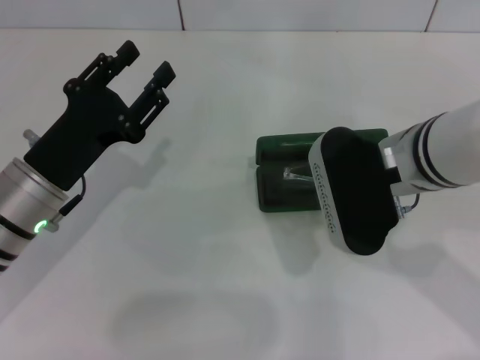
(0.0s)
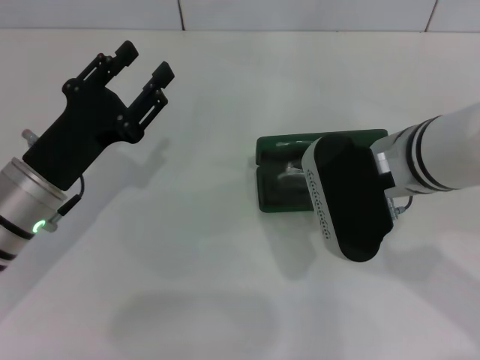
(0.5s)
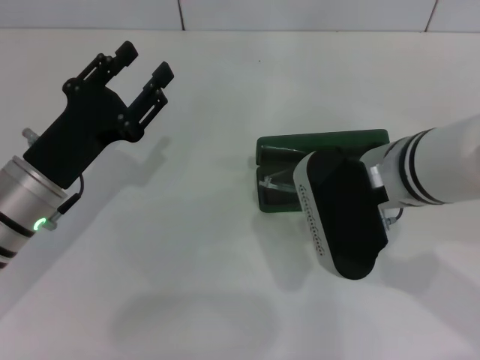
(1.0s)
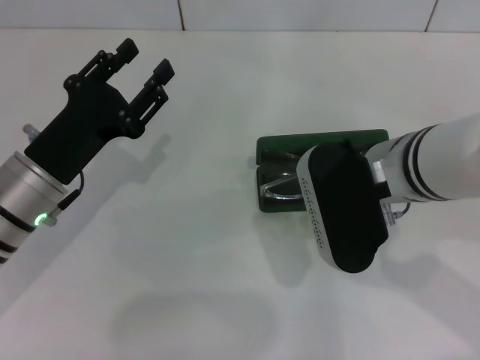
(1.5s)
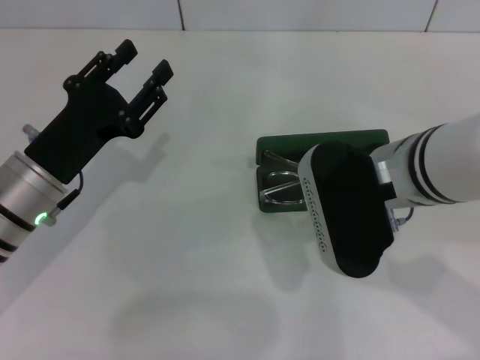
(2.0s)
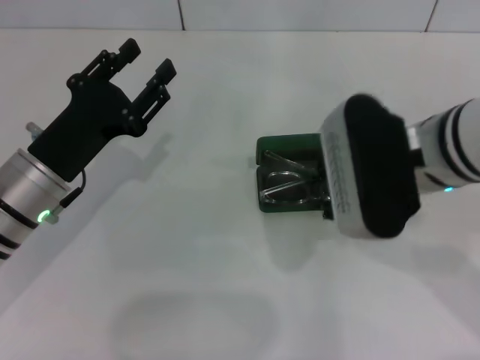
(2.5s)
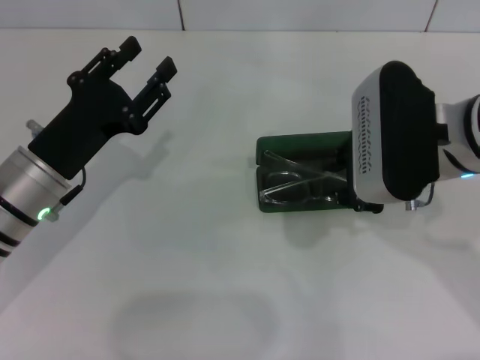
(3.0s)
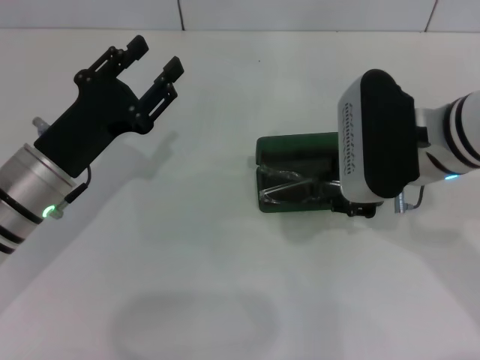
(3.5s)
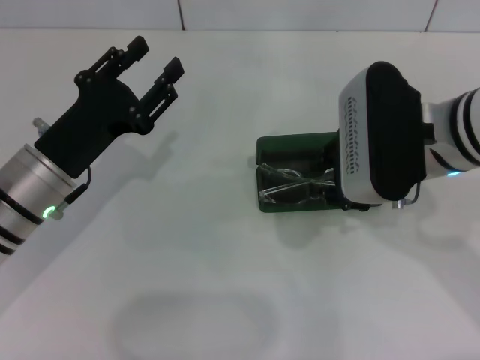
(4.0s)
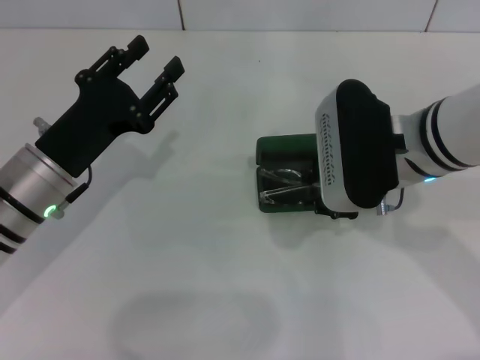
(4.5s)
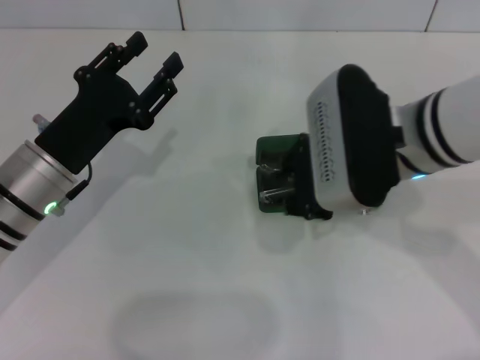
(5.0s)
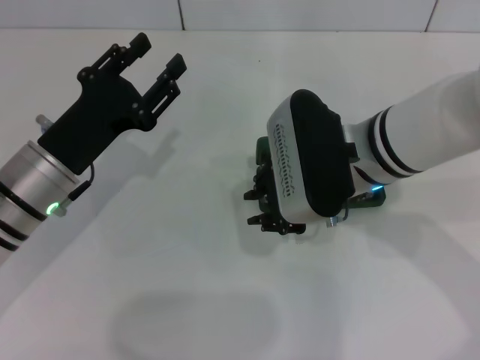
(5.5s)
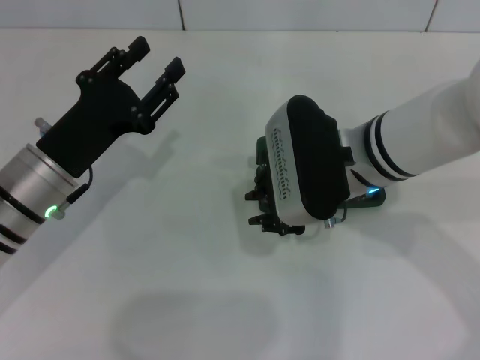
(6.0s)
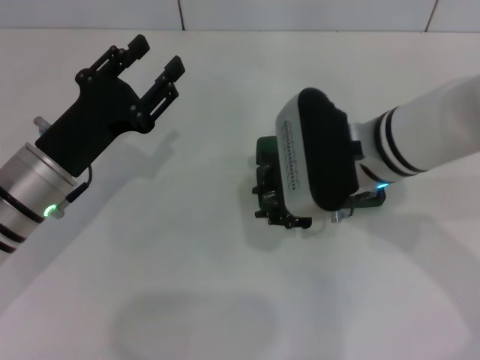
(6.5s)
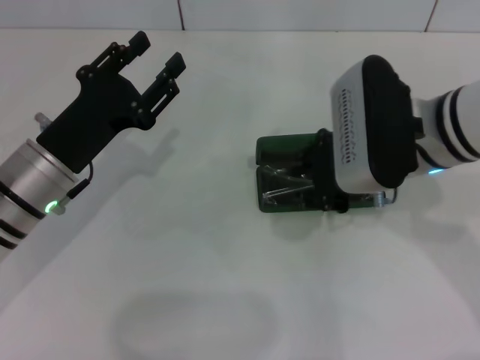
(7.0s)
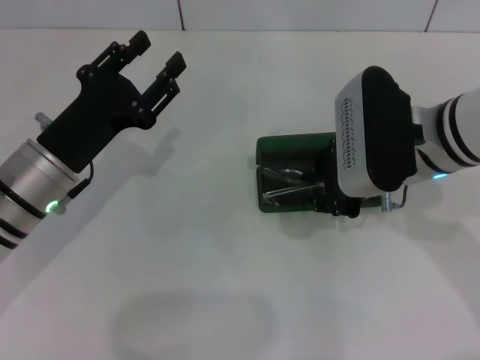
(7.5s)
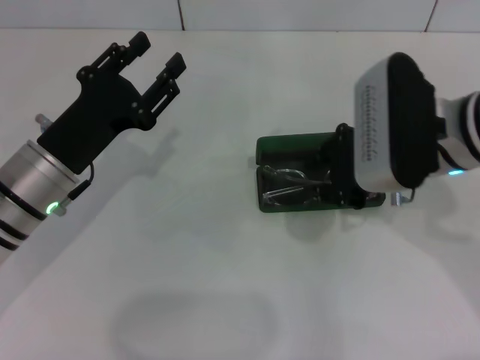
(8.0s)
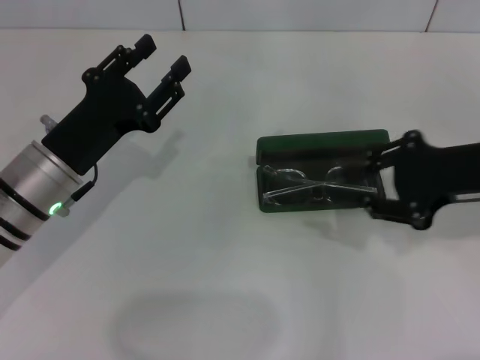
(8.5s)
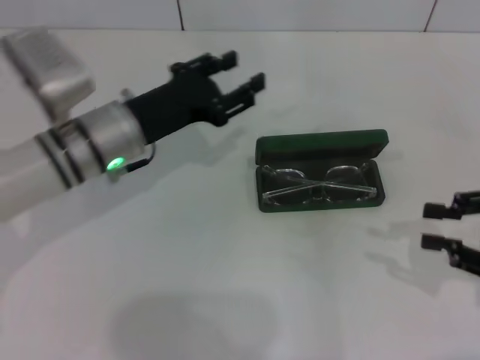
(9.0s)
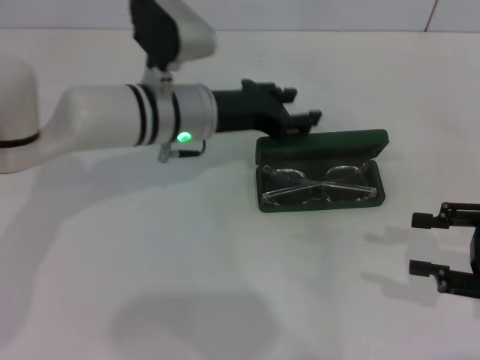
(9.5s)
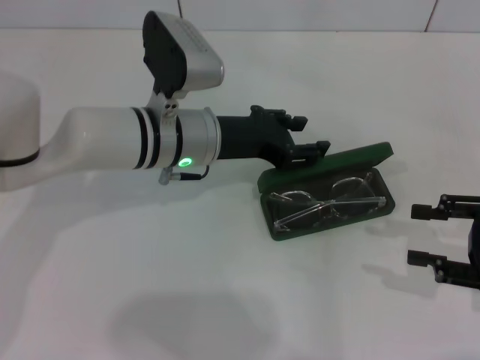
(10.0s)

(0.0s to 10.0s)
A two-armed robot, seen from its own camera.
Step, 0.0s - 7.5s: Put the glasses into the case with your right hand.
0.0s - 2.0s: The grippers stay close to where they were, moving slightly.
4.0s - 6.0s: The right gripper shifts roughly 5 cm to the left.
6.0s - 8.0s: The right gripper travels to the right by about 5 cm.
8.0s - 10.0s: The right gripper moves to the right, backward and downward, some 20 cm. Meanwhile the left gripper goes some 15 cm to the right and forward.

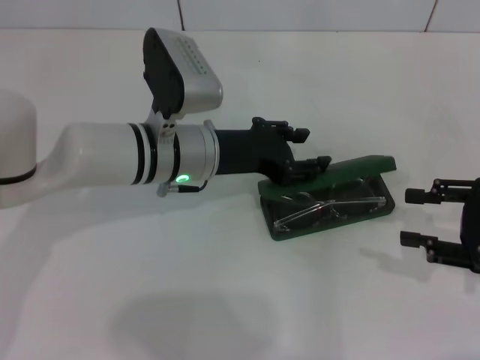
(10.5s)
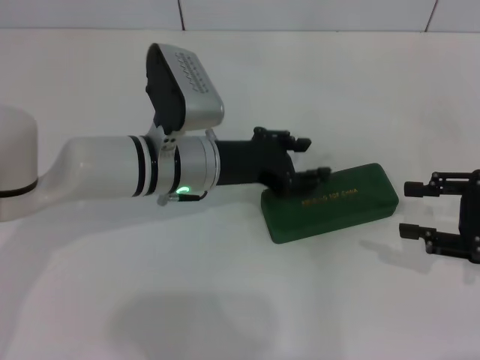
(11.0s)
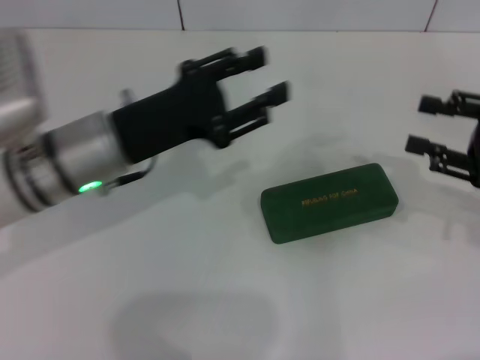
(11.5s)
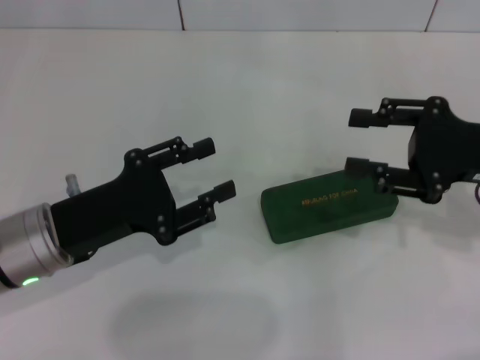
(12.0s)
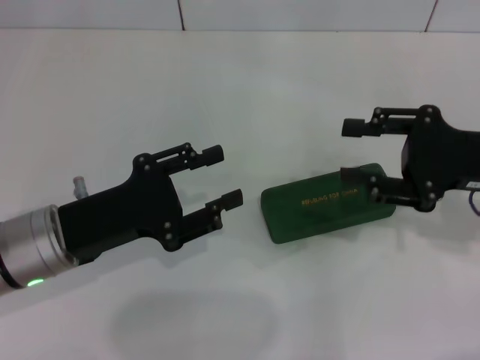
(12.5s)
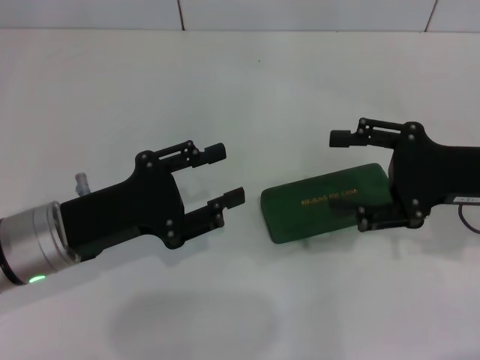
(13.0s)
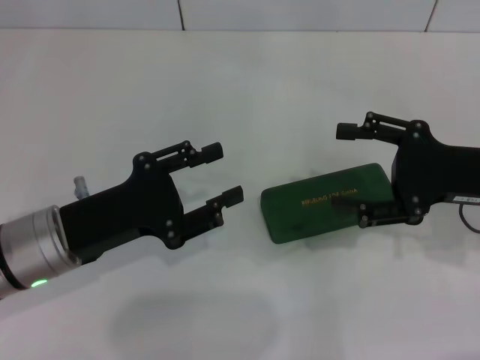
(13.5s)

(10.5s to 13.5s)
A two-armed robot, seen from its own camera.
10.5s - 12.0s: The left gripper shifts about 15 cm to the left and backward, while the right gripper moves to the left, about 5 cm.
12.0s - 13.5s: The right gripper opens up.

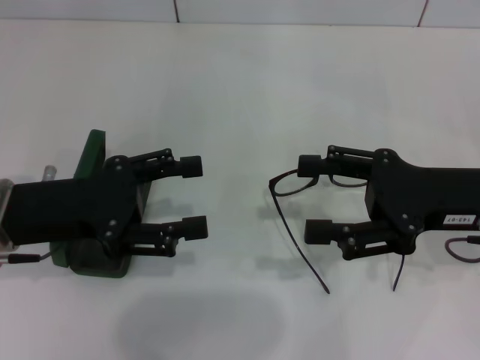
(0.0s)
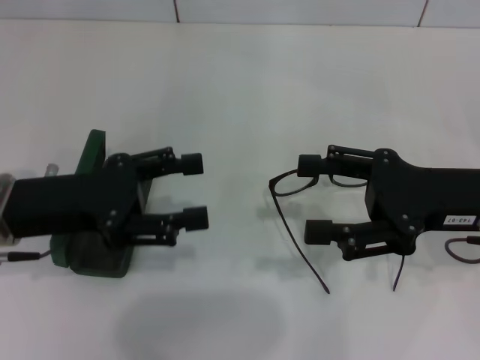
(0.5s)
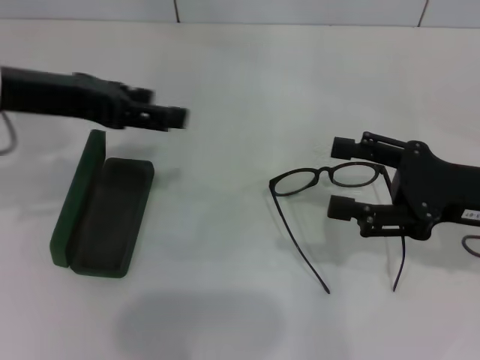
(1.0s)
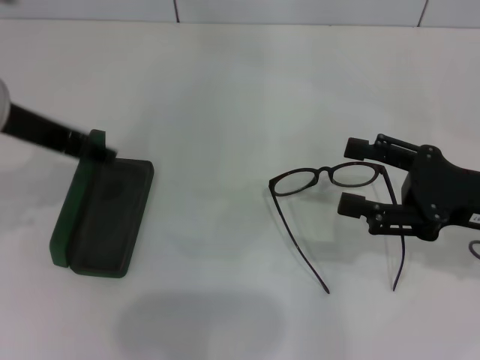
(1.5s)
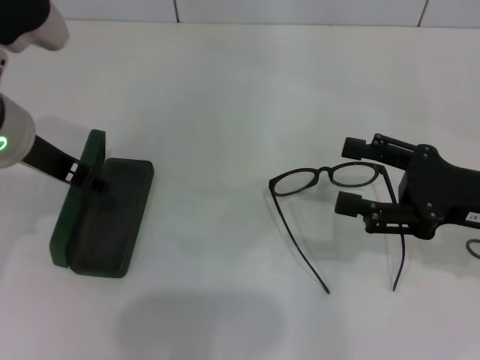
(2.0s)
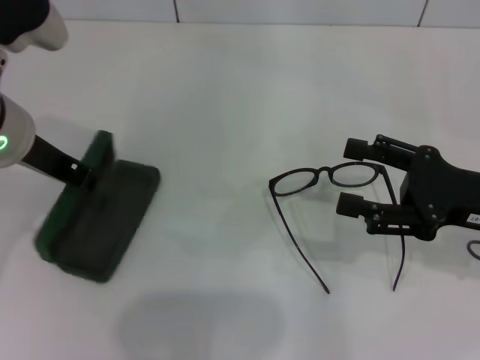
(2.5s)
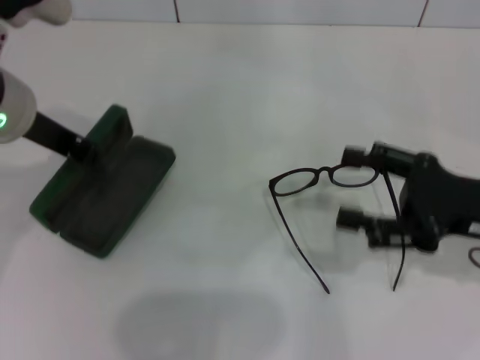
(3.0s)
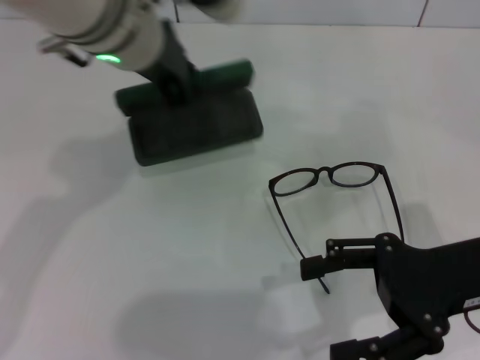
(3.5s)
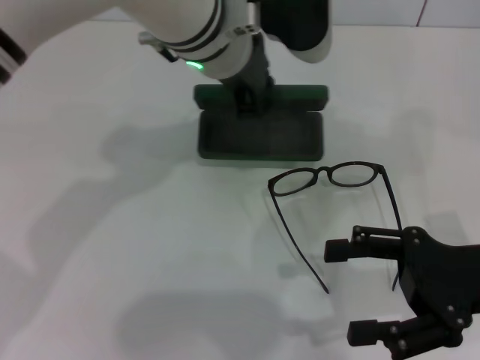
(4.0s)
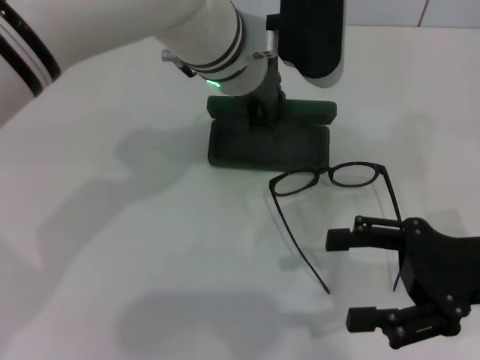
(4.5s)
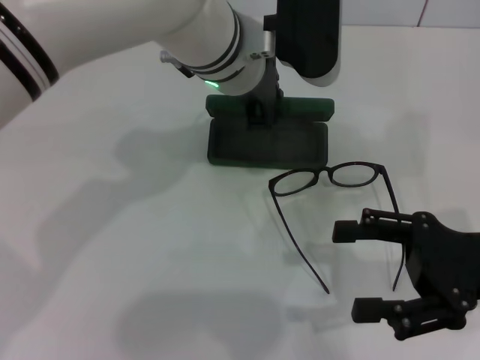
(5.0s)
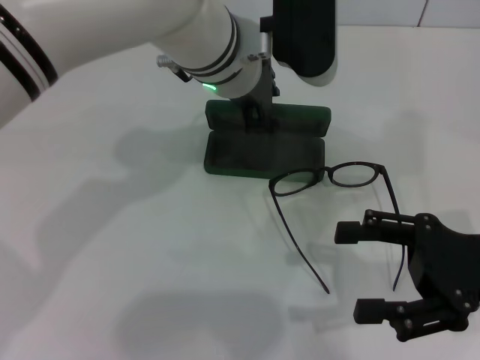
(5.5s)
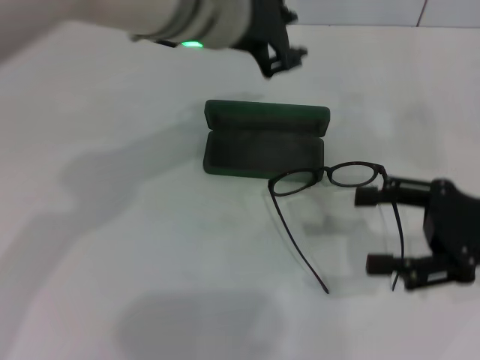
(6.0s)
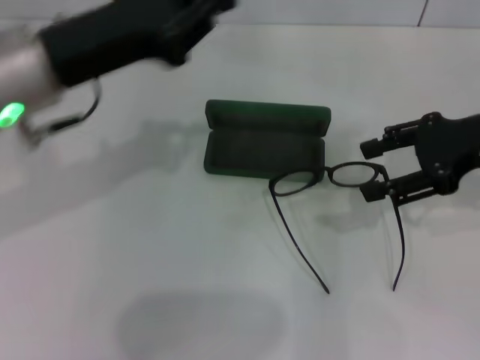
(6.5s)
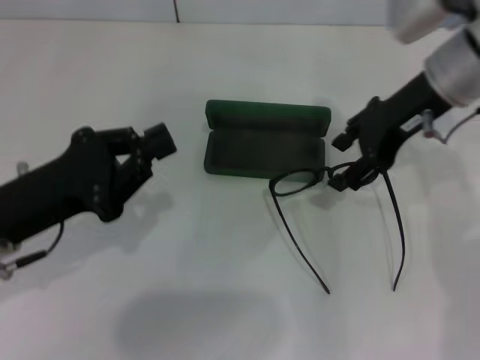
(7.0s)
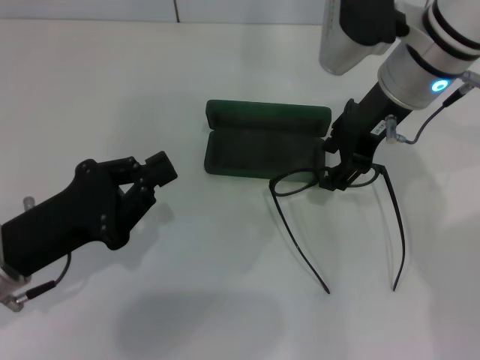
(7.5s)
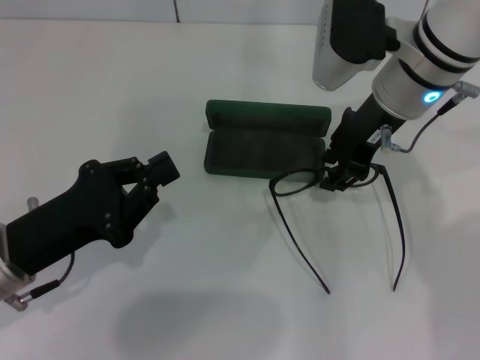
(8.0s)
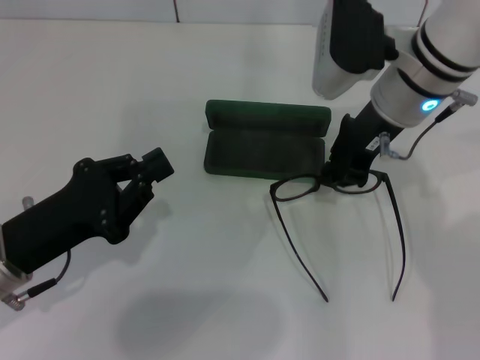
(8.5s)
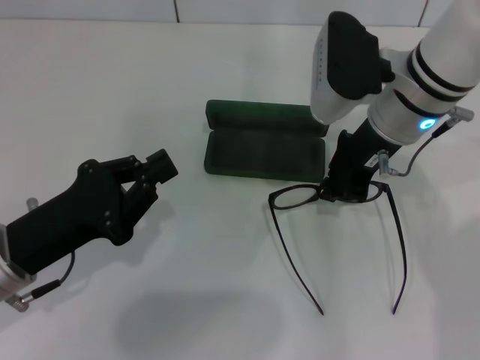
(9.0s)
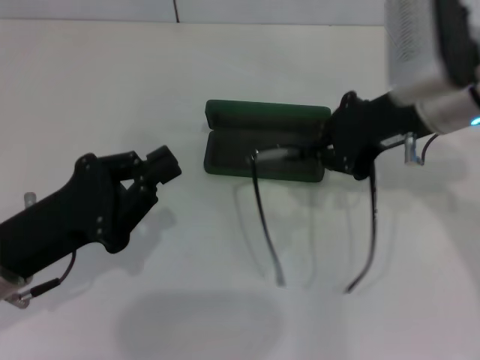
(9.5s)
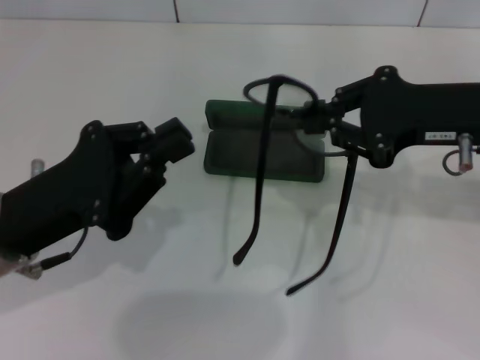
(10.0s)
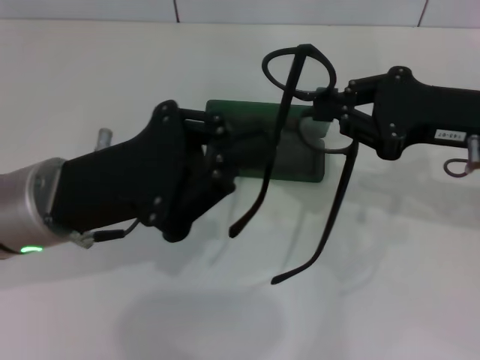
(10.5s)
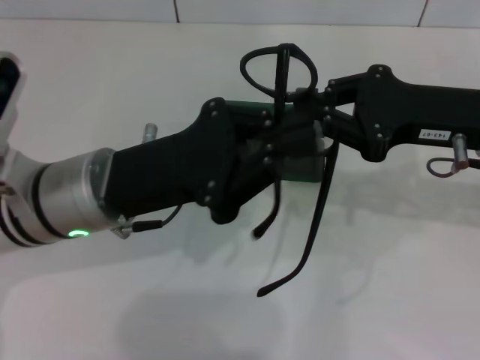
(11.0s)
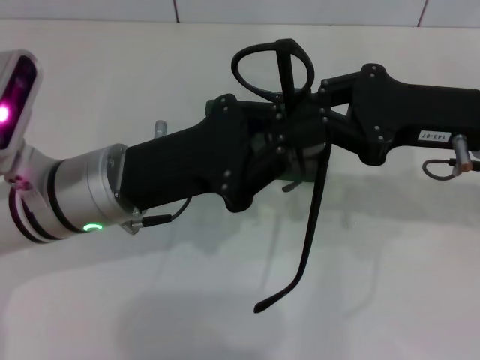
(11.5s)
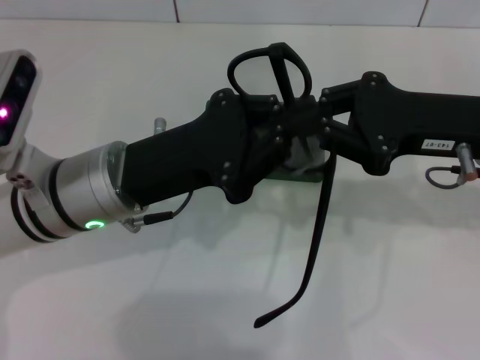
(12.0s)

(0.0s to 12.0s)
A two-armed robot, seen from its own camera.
Step, 0.0s - 2.5s: Grab the glasses case with your left hand.
Step, 3.0s - 5.0s: Place the glasses case in the center of the table with your left hand.
Step, 5.5s - 8.5s: Grab the eyeglass frame with your right hand.
0.0s - 2.0s: The left gripper moves upward and forward, approximately 10 cm.
2.0s - 4.0s: The left gripper is displaced to the right and forward by approximately 20 cm, and closes its fingers.
6.0s - 8.0s: The right gripper travels to the left and forward by roughly 20 cm, and closes its fingers. The left gripper travels to the left, downward and backward by about 30 cm, and closes.
8.0s - 10.0s: The right gripper is displaced to the right and backward by some 15 cm, and closes its fingers.
10.0s - 12.0s: The left gripper shifts about 10 cm to the right and forward.
